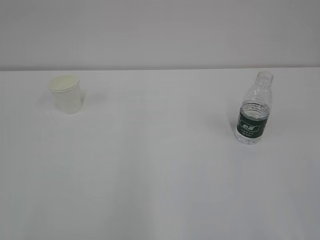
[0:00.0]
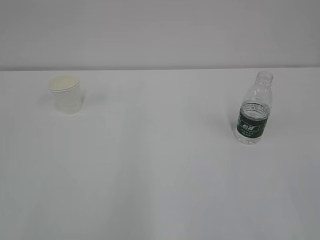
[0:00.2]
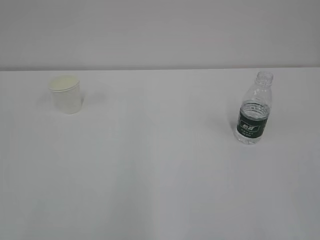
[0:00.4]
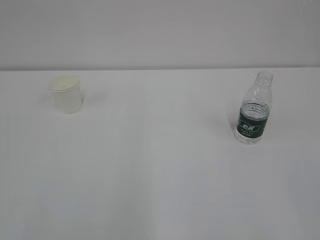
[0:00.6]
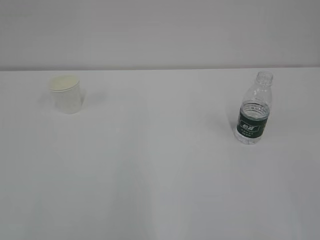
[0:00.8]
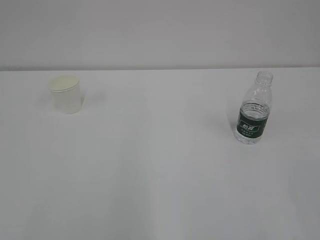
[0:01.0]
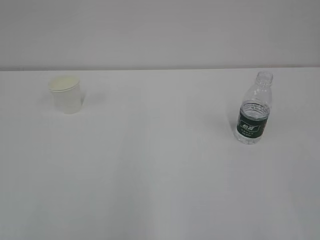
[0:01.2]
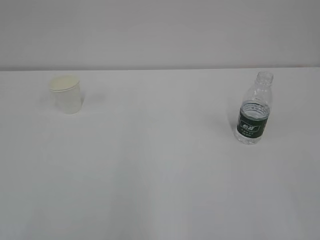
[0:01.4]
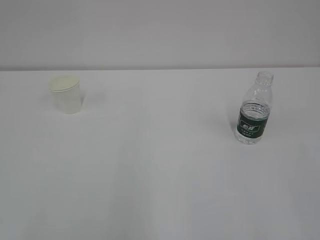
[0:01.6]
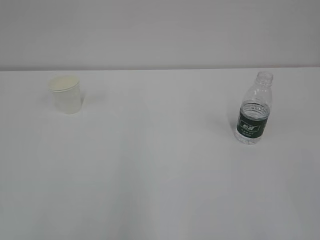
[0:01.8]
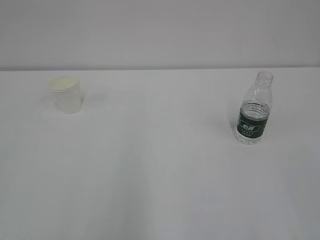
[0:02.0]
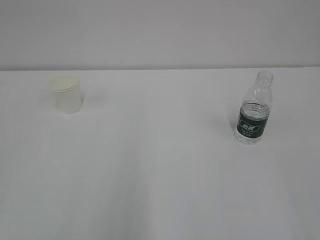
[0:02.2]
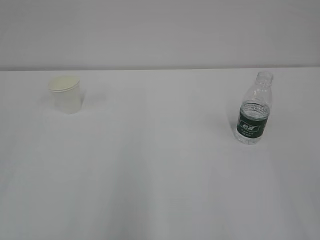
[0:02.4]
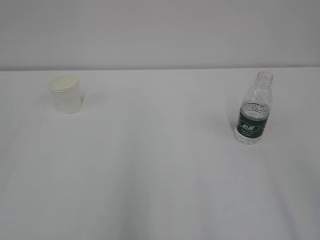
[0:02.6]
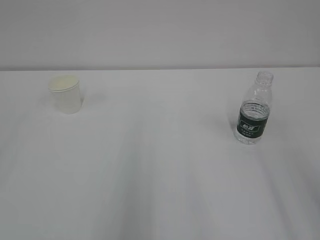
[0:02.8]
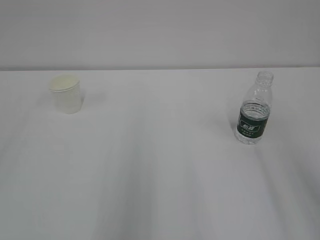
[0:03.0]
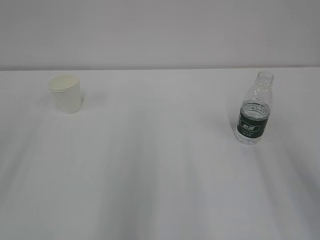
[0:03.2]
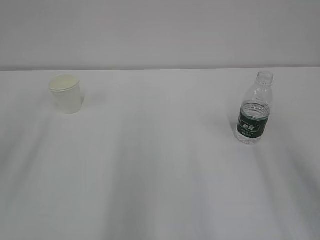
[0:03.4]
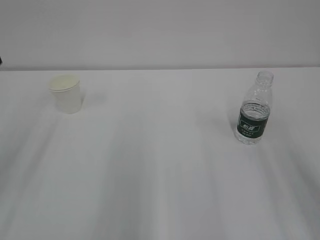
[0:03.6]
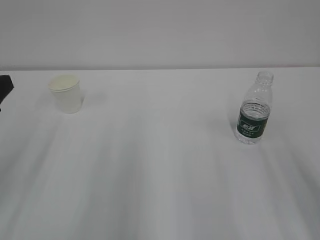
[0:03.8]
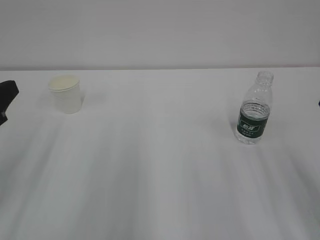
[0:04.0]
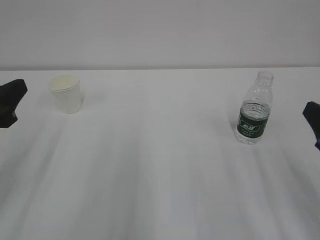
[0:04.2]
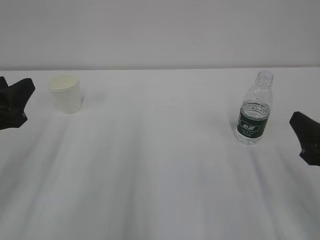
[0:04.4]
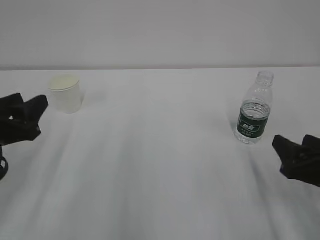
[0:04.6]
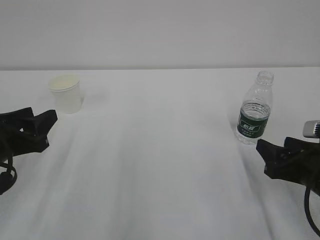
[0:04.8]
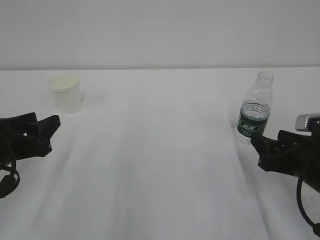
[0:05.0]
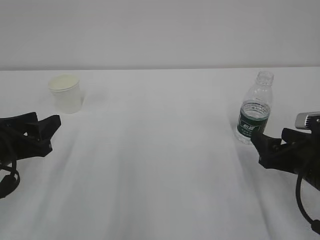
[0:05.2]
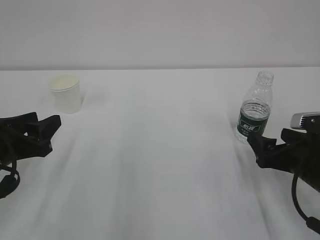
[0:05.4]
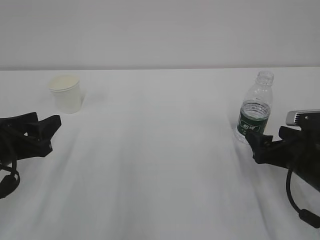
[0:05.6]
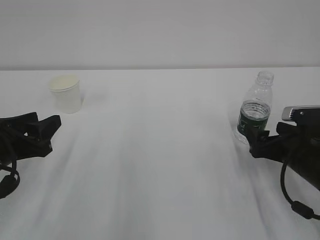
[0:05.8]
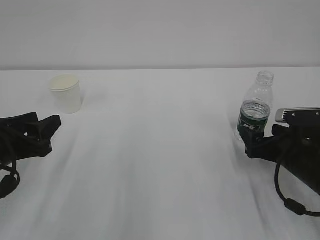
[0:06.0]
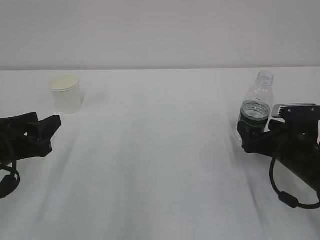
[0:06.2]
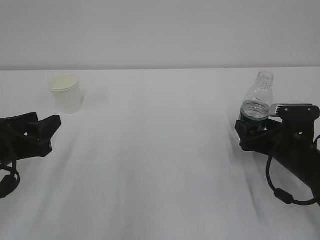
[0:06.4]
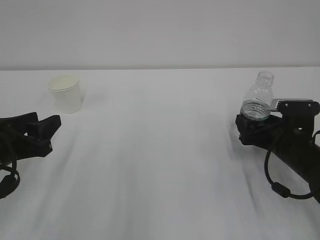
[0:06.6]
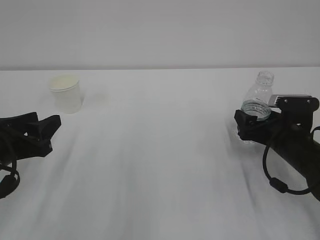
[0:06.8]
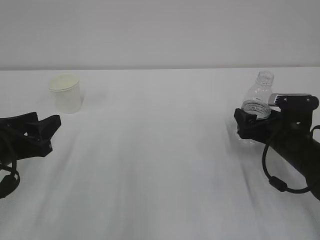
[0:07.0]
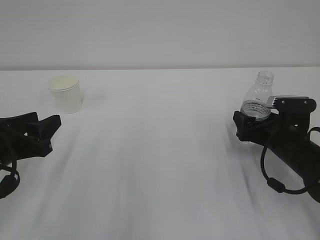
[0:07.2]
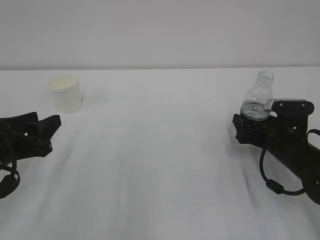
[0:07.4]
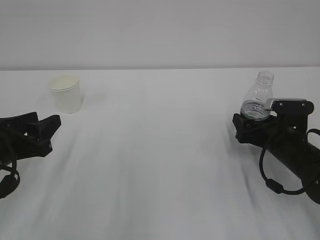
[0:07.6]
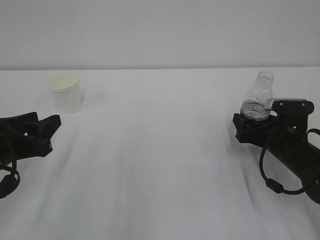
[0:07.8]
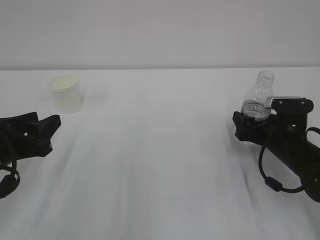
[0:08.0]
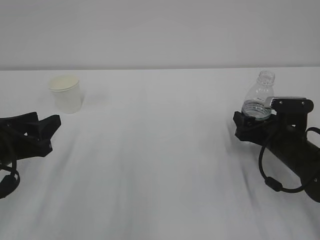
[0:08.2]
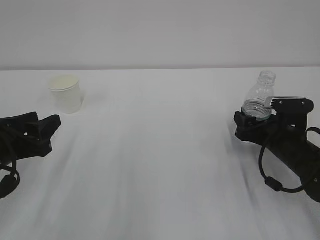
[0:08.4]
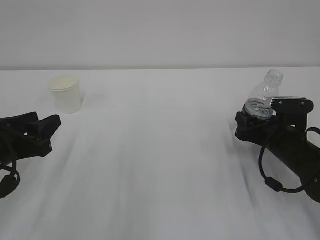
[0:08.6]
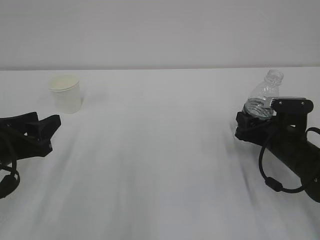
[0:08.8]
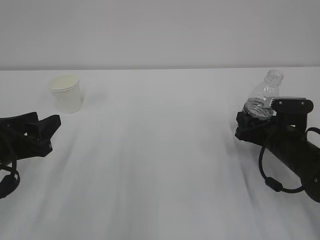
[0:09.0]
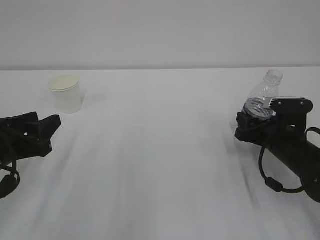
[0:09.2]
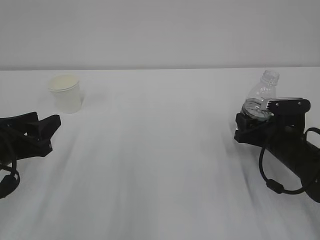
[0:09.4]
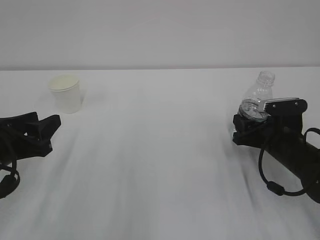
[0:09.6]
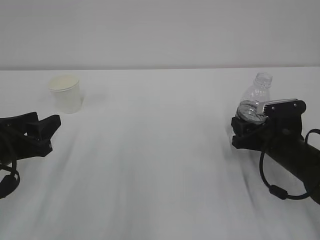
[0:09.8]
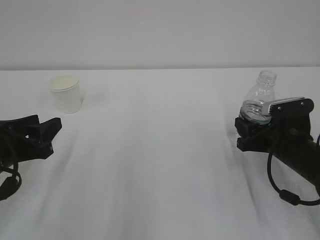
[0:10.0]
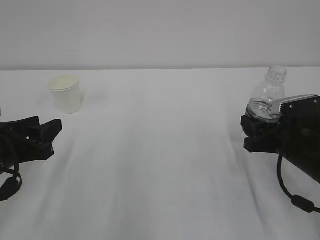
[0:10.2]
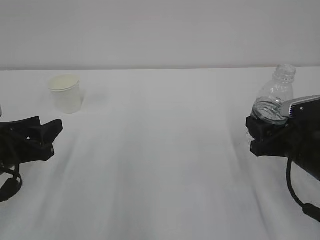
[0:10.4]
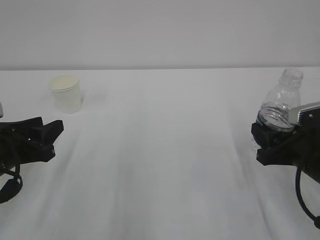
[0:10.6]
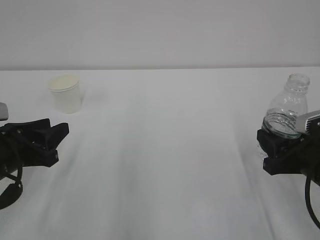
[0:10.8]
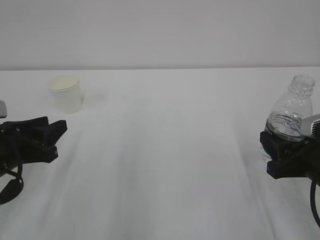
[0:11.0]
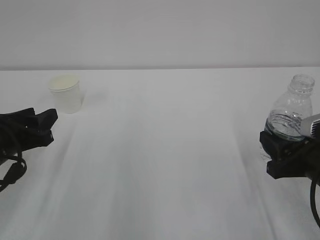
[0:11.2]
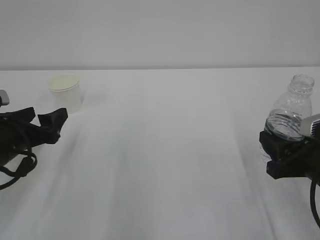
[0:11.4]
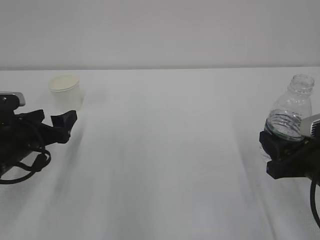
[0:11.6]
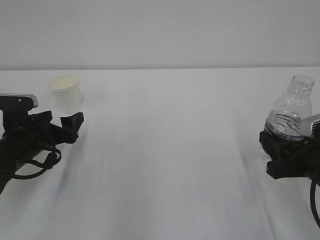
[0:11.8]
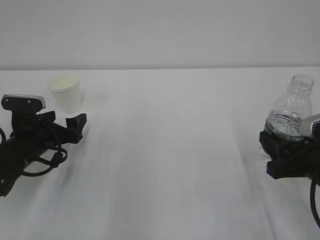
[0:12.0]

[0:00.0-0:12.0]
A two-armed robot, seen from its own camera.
0:03.0 to 0:04.4: The left gripper goes some 20 cm downward, forward and to the right. The right gripper shifts some 20 cm downward and forward.
0:04.4 to 0:06.0: The right gripper is displaced forward and downward by approximately 15 cm, and opens up; the left gripper shifts some 5 cm downward.
0:06.0 to 0:07.6: The grippers make only small movements.
0:07.6 to 0:09.0: The right gripper closes its fingers.
0:09.0 to 0:10.4: The right gripper heads backward, covering about 5 cm.
0:10.4 to 0:12.0: The left gripper moves forward and downward, roughly 10 cm, and opens.

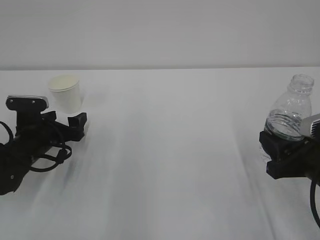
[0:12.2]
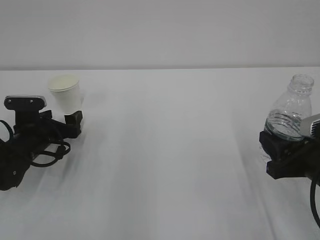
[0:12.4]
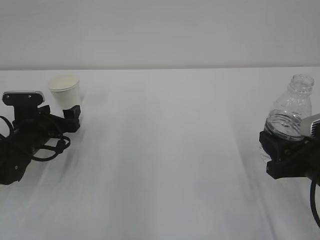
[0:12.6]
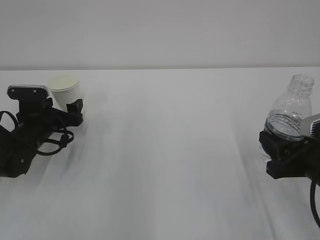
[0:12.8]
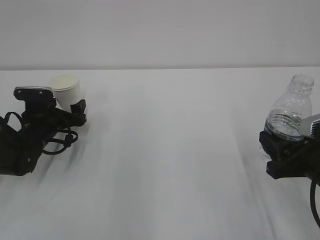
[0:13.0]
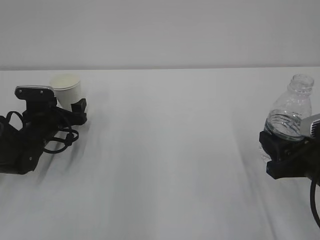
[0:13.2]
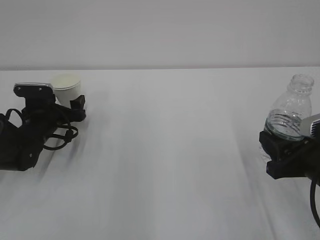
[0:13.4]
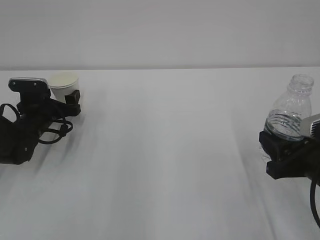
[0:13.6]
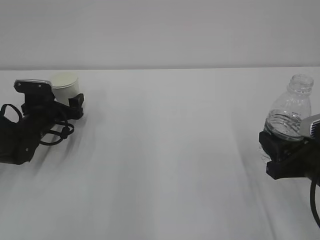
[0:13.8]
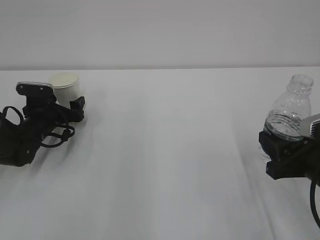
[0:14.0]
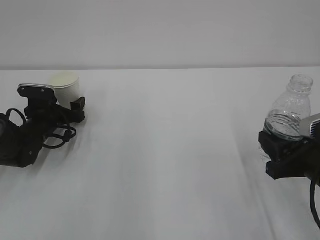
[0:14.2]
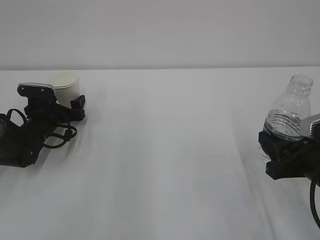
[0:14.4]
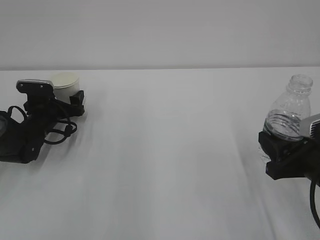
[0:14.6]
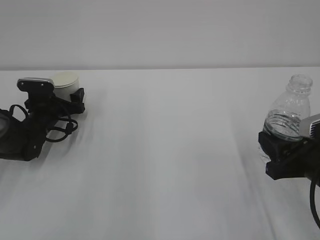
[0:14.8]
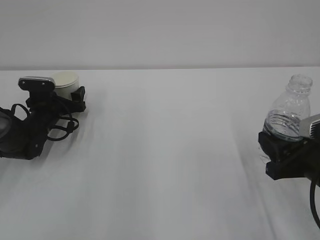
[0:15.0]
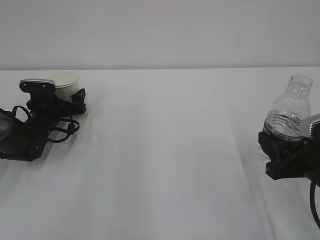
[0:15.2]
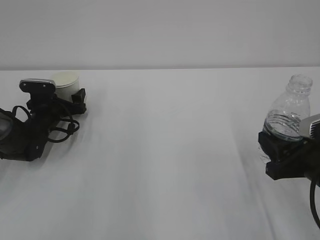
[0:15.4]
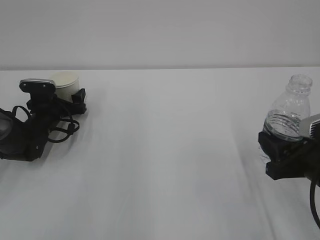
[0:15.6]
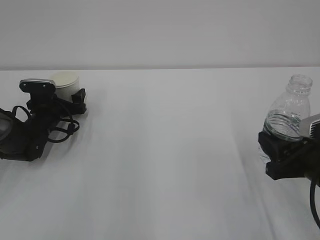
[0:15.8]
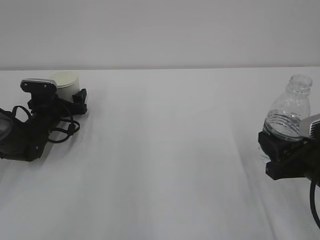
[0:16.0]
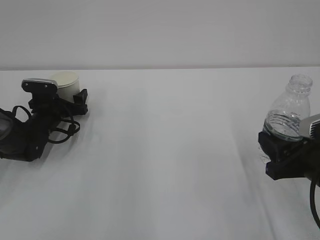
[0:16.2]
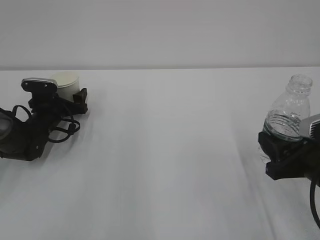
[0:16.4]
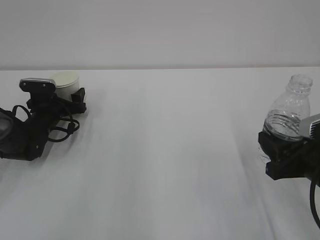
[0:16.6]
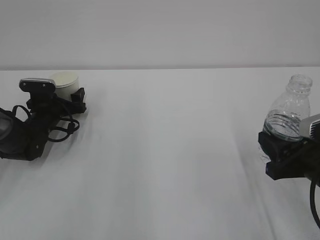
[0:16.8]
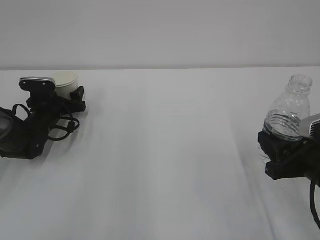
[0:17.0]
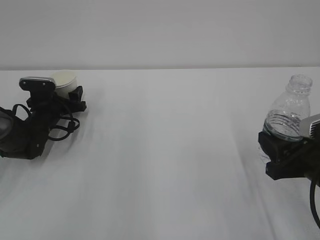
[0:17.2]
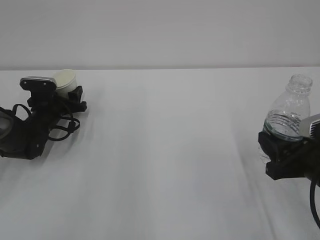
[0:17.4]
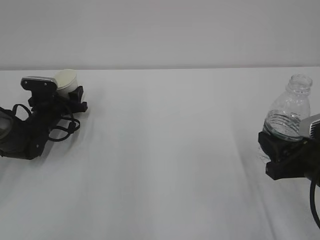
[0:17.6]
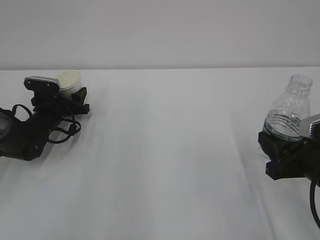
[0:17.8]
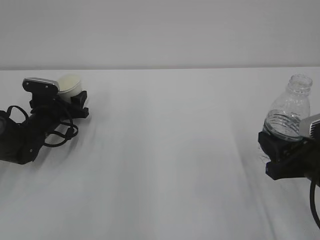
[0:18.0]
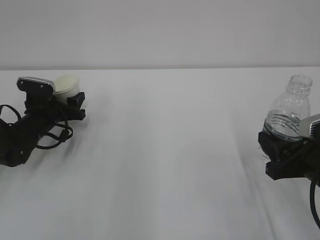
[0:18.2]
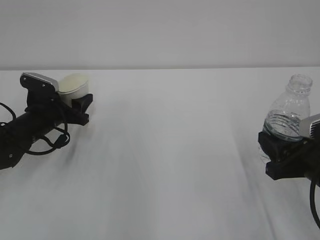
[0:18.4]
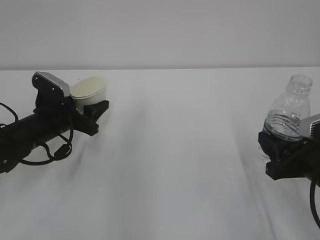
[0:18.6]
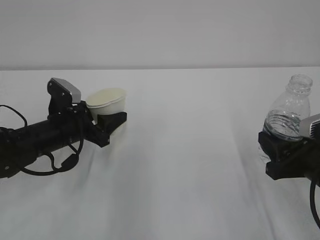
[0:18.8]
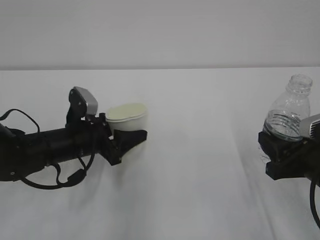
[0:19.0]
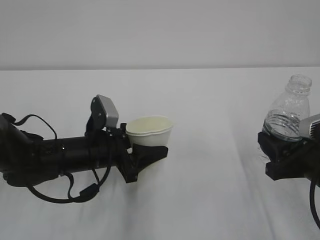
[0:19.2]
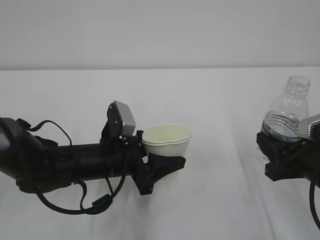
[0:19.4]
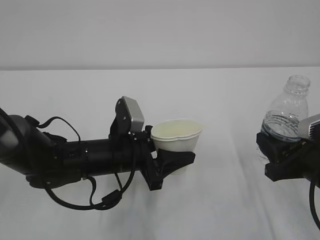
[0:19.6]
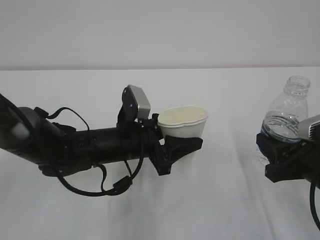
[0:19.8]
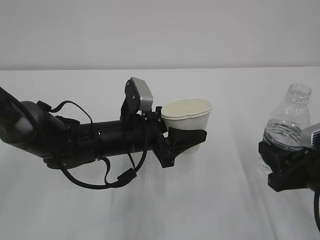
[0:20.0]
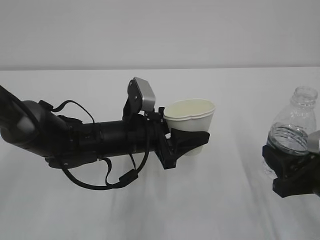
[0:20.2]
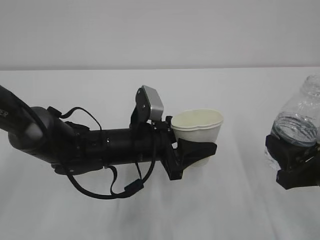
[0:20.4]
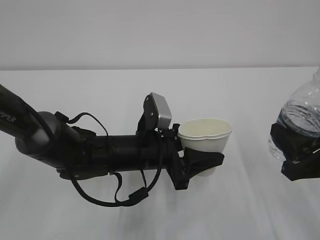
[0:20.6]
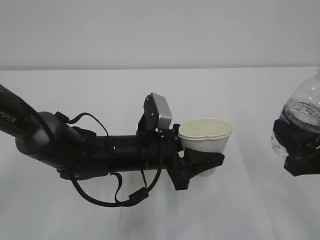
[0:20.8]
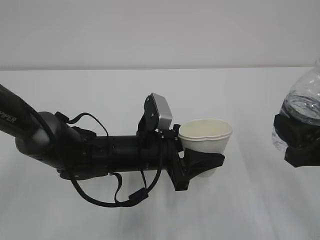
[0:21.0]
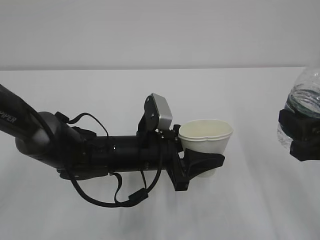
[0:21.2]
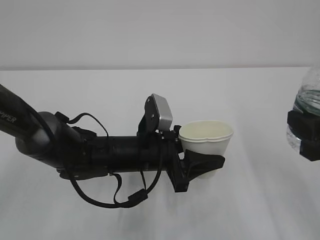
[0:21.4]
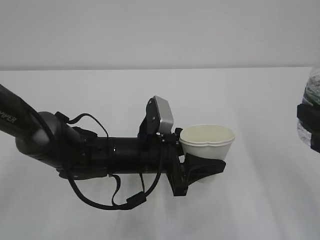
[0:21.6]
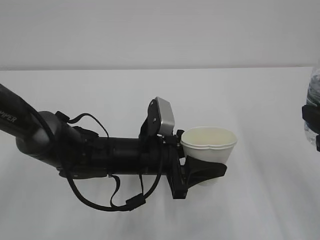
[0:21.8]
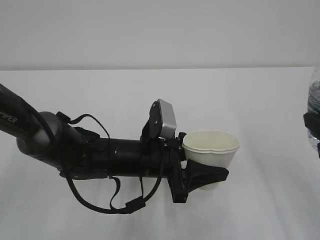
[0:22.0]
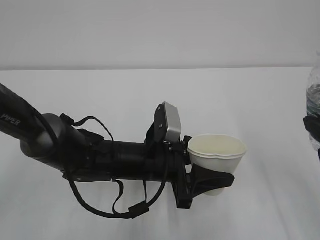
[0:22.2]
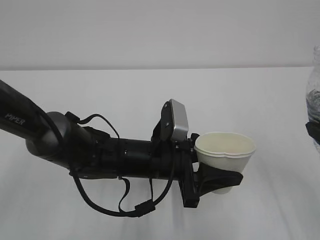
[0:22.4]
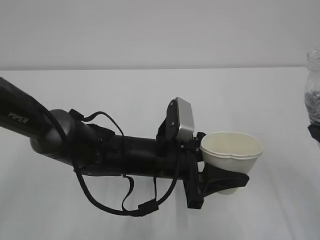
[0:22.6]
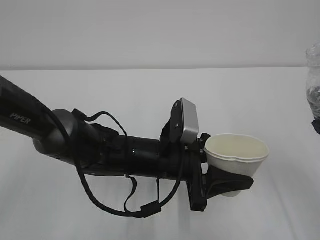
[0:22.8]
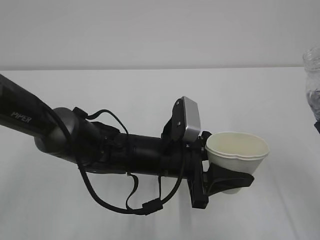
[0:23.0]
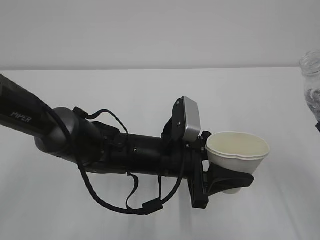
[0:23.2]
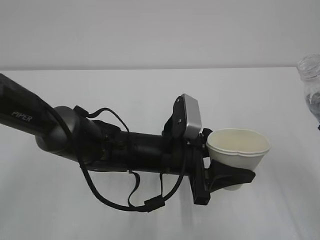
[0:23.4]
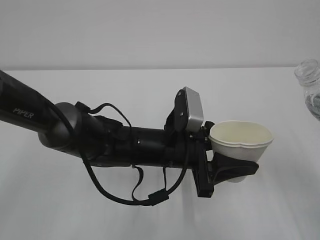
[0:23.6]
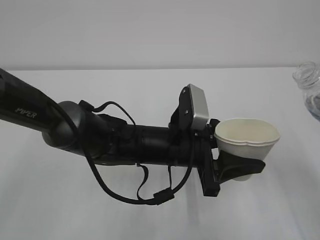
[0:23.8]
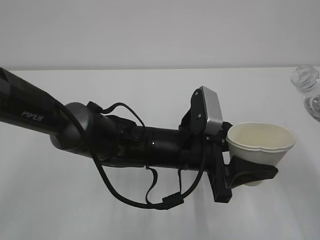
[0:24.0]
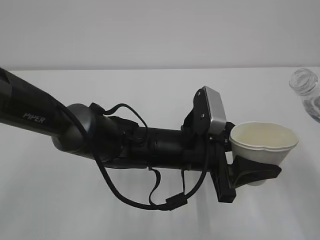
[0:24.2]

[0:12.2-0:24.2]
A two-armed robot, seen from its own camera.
0:12.2 to 0:13.8: The left gripper goes about 10 cm forward.
0:13.8 to 0:15.2: There are only small adjustments of the grippers.
0:15.2 to 0:16.6: The two grippers keep their place.
0:16.6 to 0:18.2: The left gripper closes.
0:18.2 to 0:19.8: The left gripper shifts some 25 cm to the right and backward.
0:19.8 to 0:21.2: The right gripper shifts about 5 cm upward.
